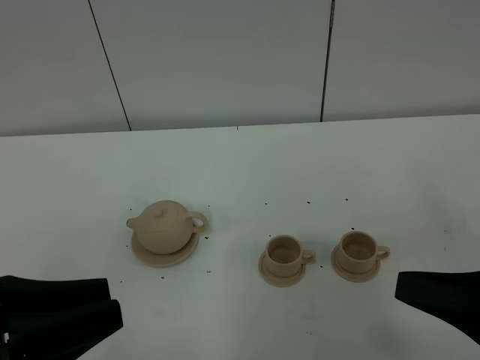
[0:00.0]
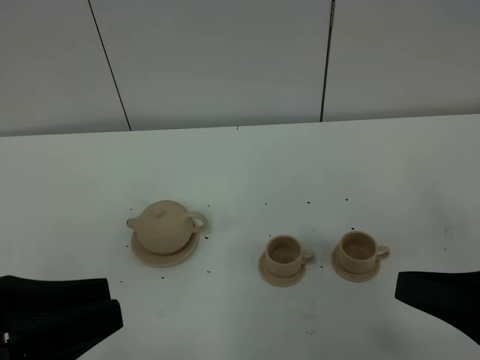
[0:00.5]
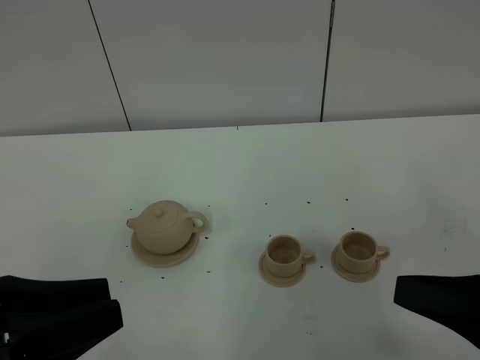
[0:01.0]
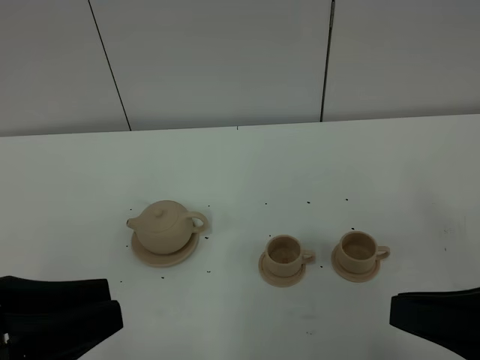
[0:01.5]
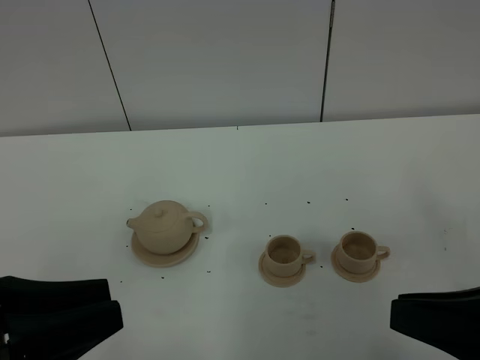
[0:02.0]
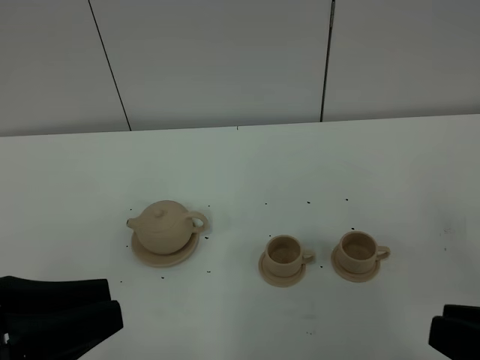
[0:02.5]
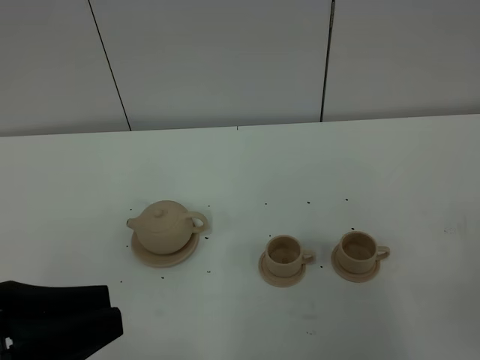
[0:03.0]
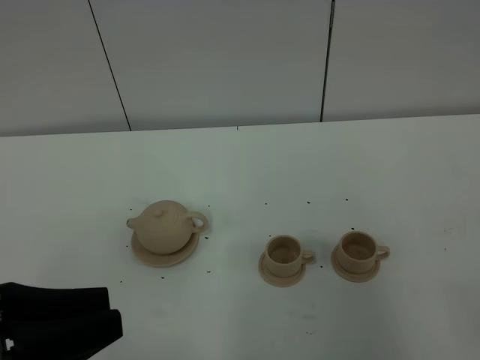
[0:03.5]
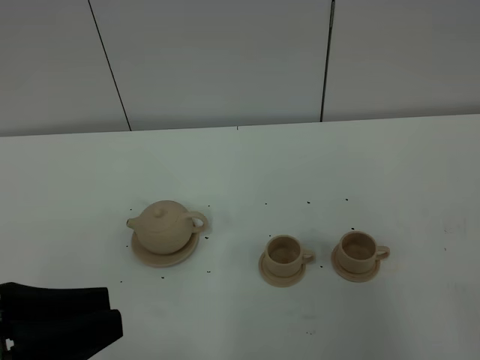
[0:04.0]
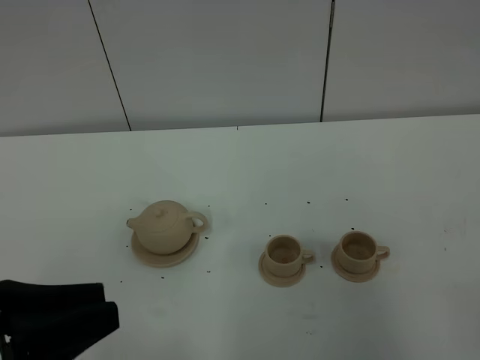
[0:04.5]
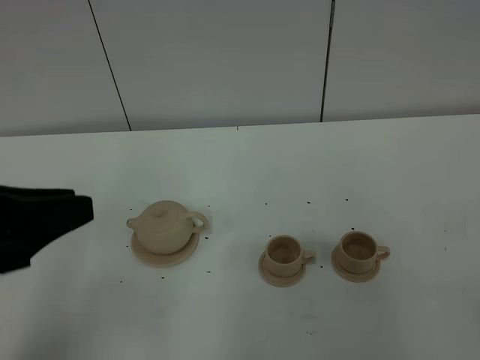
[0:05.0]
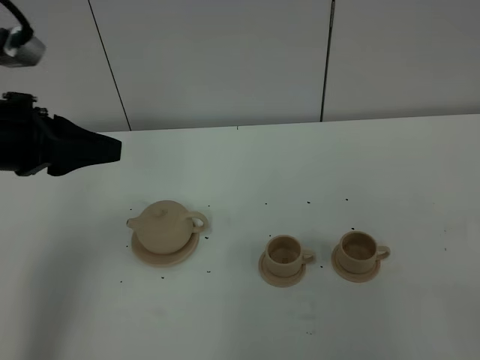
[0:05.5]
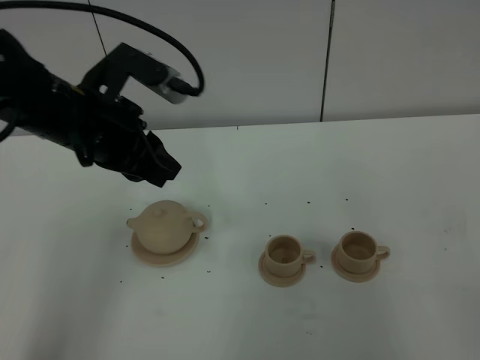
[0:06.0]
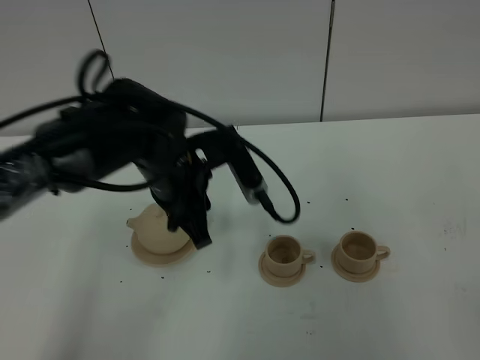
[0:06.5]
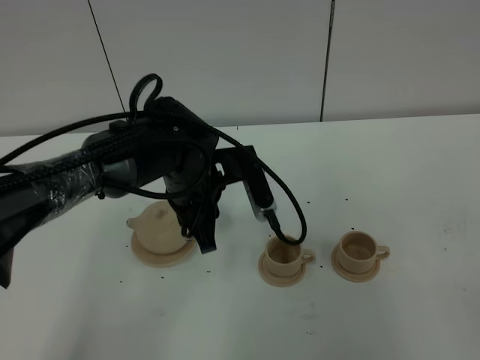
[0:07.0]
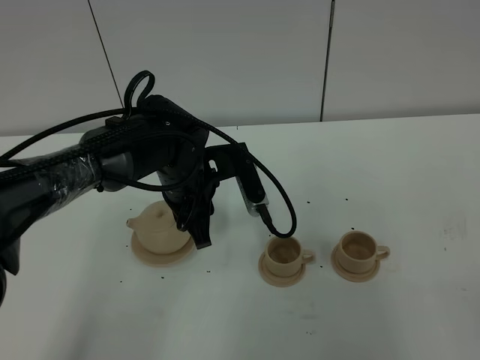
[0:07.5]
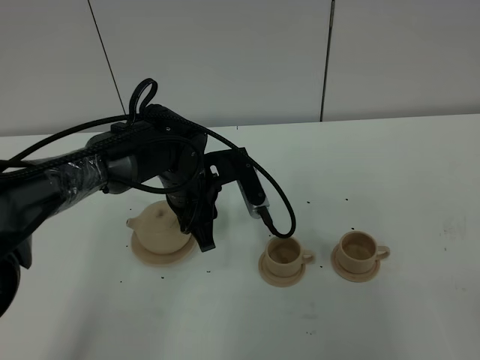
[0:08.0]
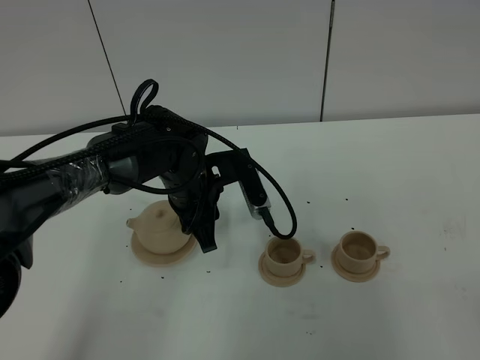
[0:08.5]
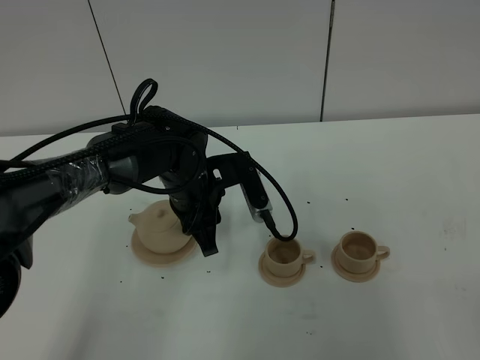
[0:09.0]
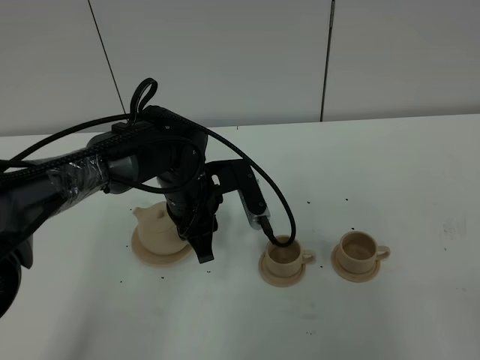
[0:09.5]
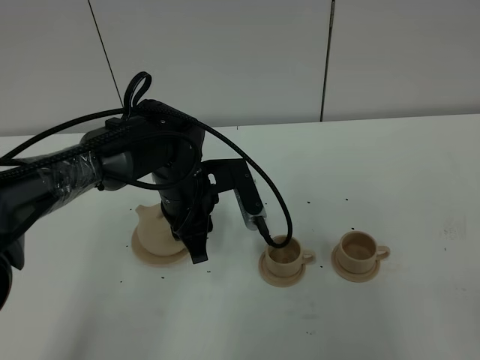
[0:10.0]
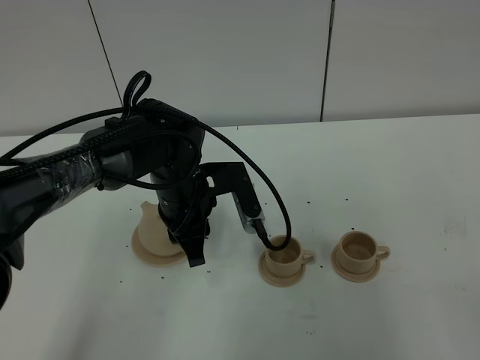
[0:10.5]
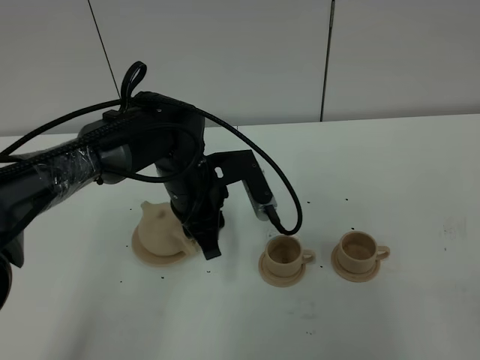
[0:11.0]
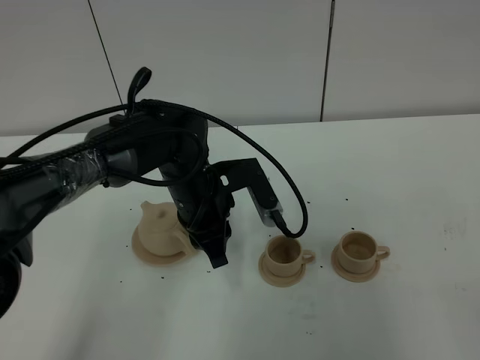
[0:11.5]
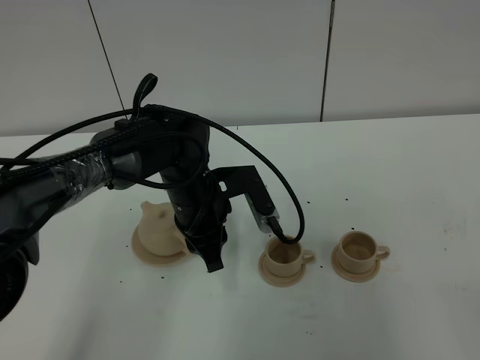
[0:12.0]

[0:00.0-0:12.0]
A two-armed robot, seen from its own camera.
Task of the whole recording: grasp the brown teapot and pour the tea into the two brown teacups one by one, put the brown teapot back in its original place.
0:00.0 to 0:02.0: There are only small adjustments of the grippers.
0:02.0 to 0:04.0: The right gripper travels backward and to the right by about 15 cm.
0:04.0 to 0:06.0: The left gripper heads forward, covering approximately 25 cm.
0:06.0 to 0:08.0: The left gripper heads downward and to the right, covering roughly 15 cm.
0:08.0 to 0:12.0: The grippers move only a little.

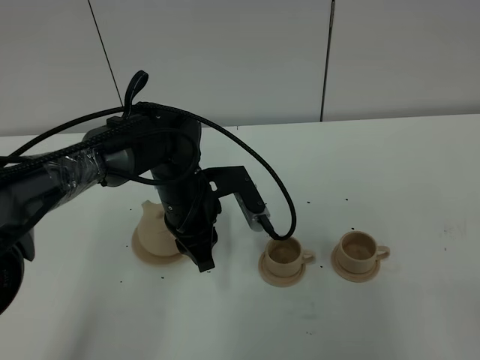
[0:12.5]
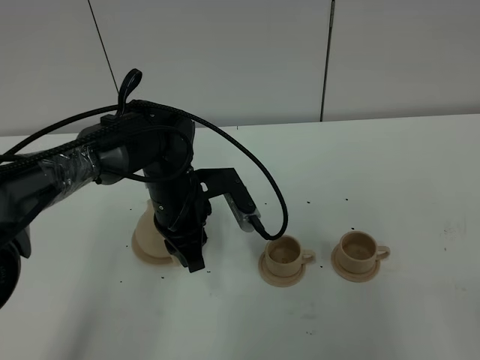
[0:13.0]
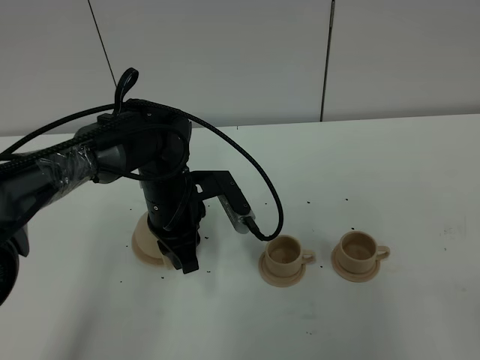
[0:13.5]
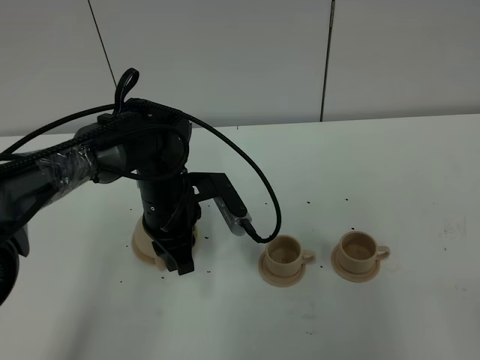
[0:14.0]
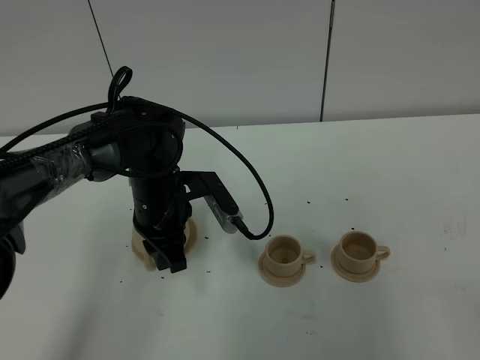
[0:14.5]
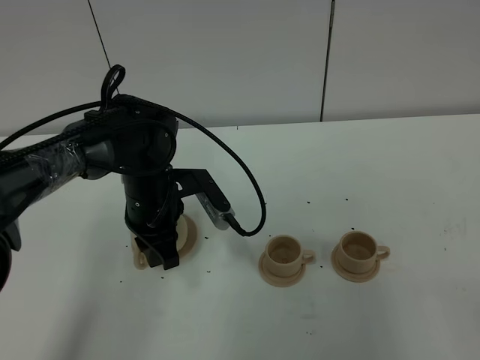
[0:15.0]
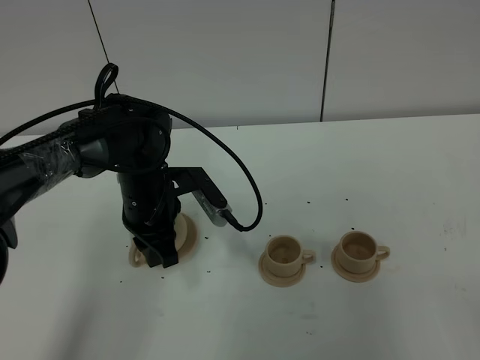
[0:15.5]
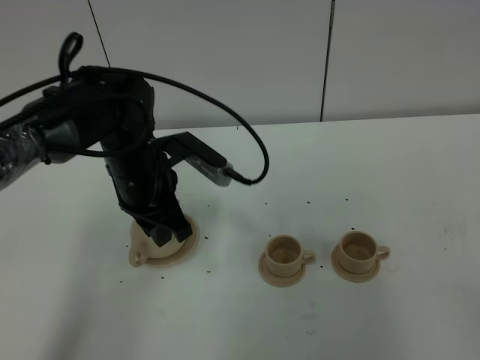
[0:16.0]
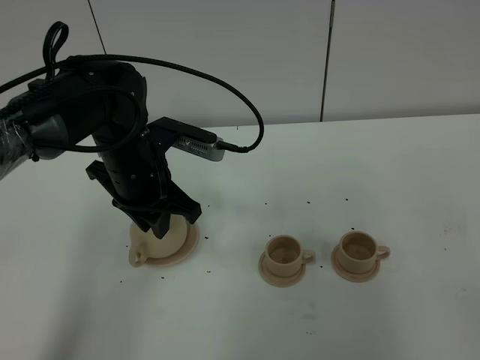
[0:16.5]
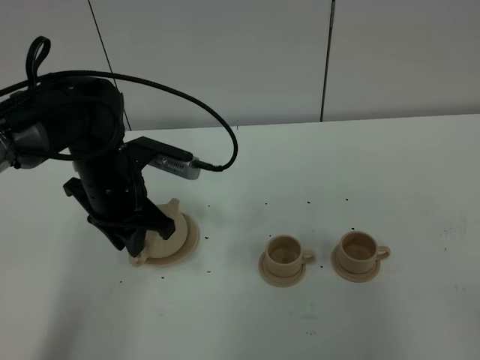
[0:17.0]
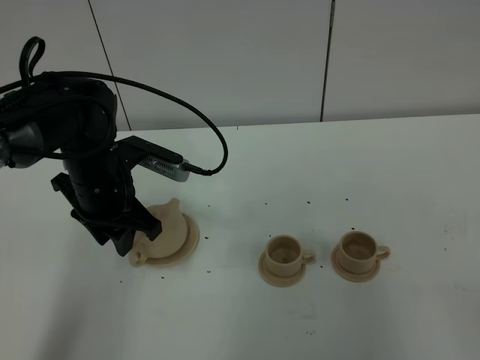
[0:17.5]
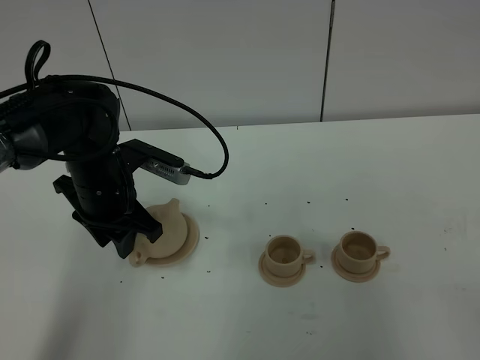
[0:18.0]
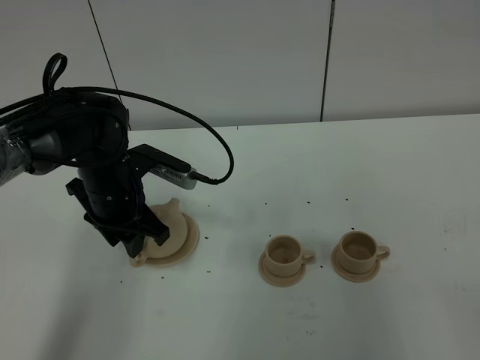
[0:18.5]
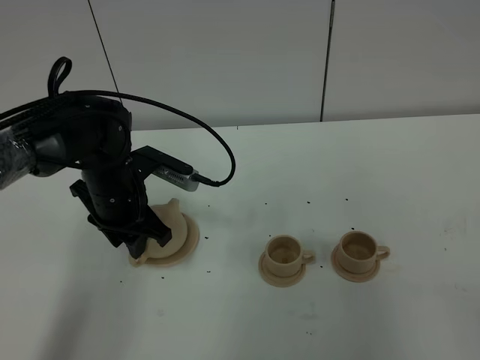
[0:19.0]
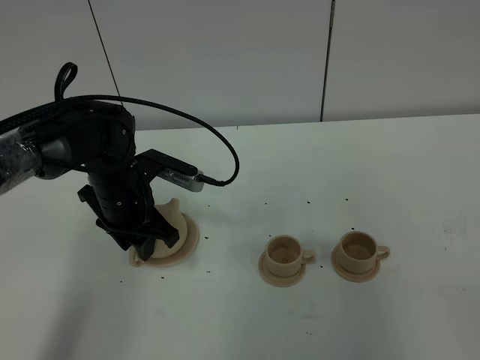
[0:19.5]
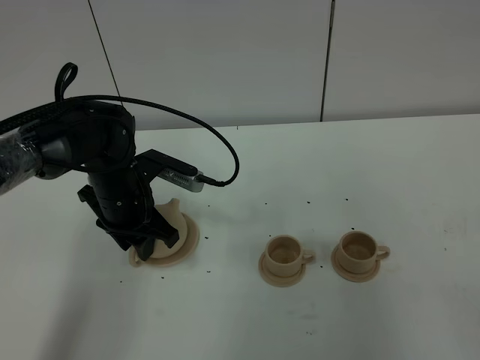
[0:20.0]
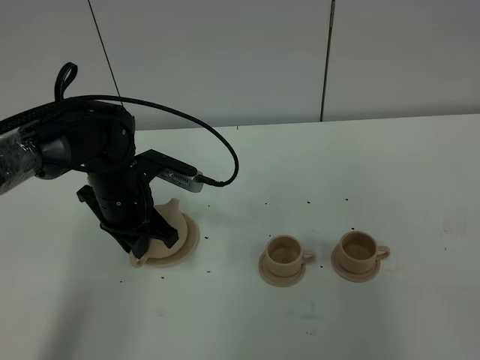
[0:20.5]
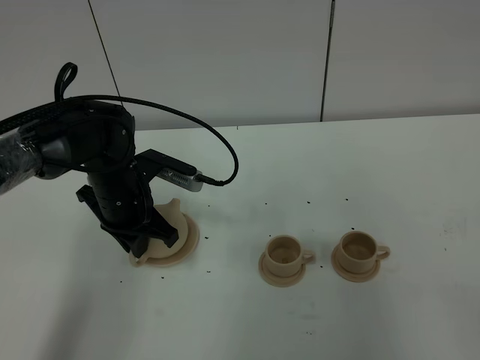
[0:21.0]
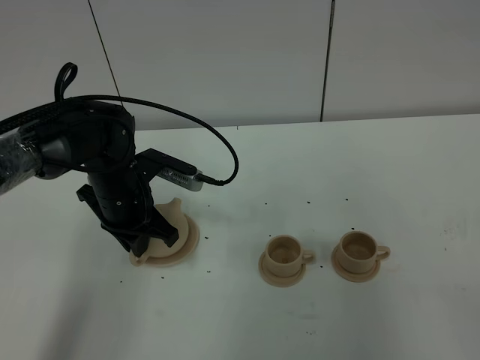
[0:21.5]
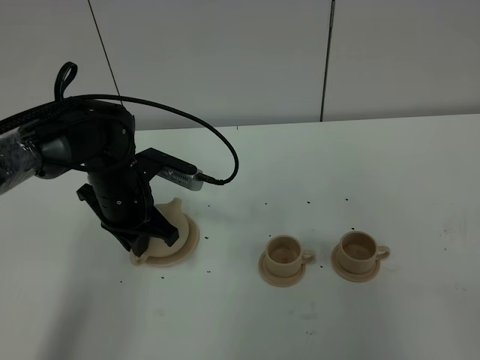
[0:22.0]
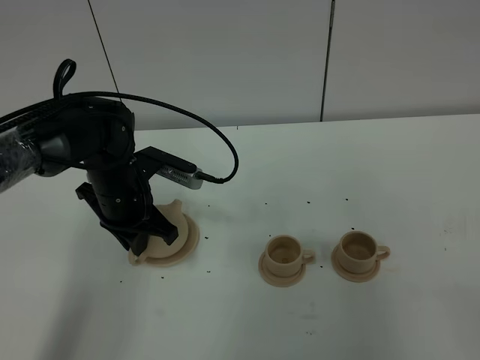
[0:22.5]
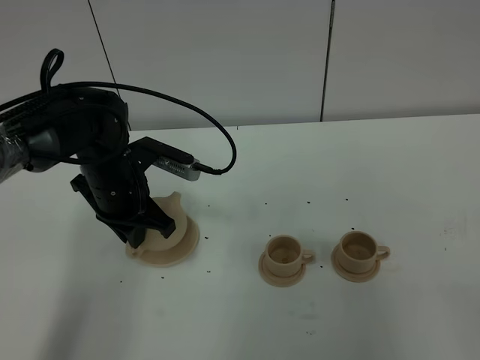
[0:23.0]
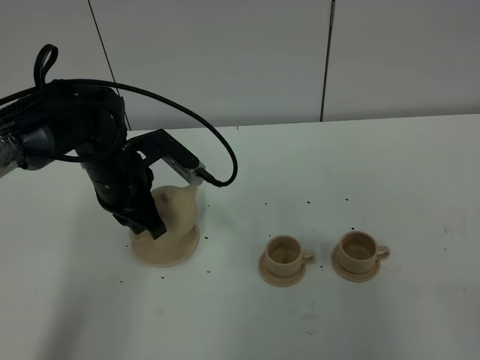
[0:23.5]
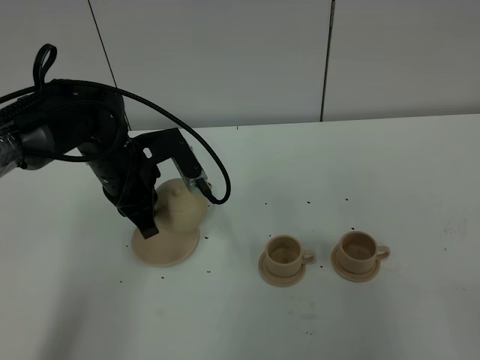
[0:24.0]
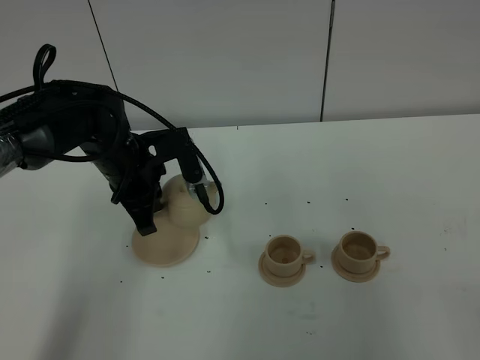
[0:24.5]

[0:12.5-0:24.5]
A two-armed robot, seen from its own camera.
Task of the whole recording: grasp the brown teapot and pour the tea into the two brown teacups one by one, put the brown teapot back in its original place.
Step, 0:12.5 to 0:23.0: Pick up the teapot with the left gripper.
0:12.5 to 0:14.5: The grippers move only a little.
0:14.5 to 0:16.5: The left gripper travels upward by about 5 cm.
0:16.5 to 0:18.5: The left gripper changes place by approximately 5 cm, and opens its fingers.
0:18.5 to 0:20.5: The left gripper closes.
0:20.5 to 0:22.5: Both grippers stay put.

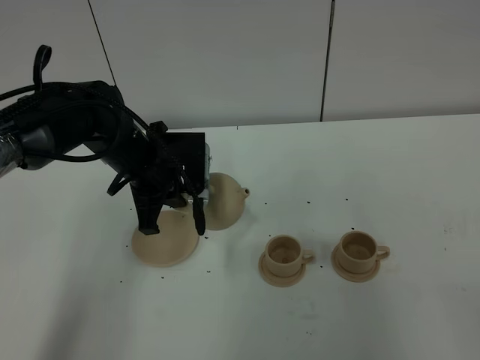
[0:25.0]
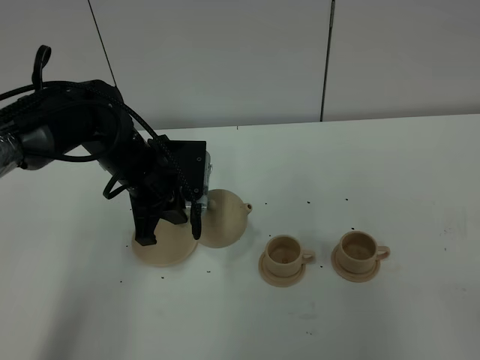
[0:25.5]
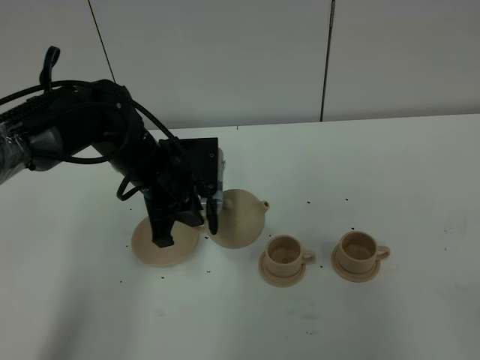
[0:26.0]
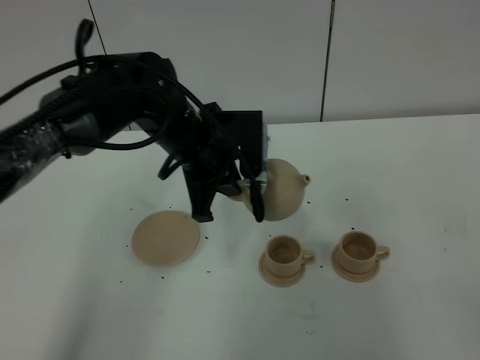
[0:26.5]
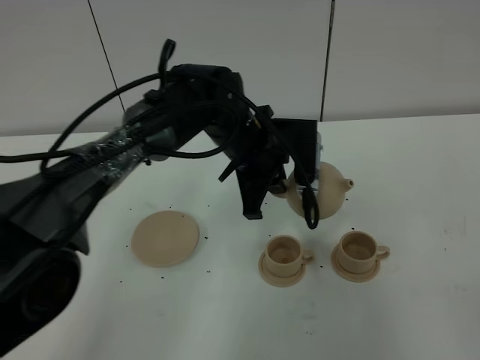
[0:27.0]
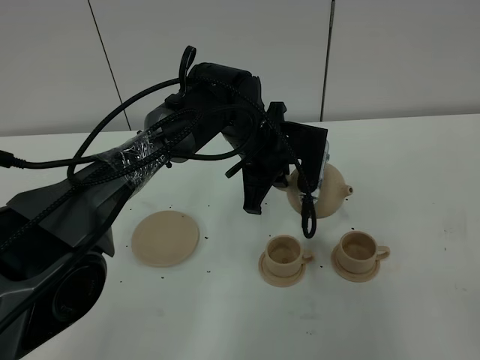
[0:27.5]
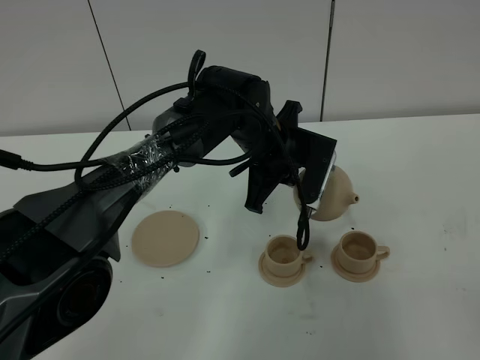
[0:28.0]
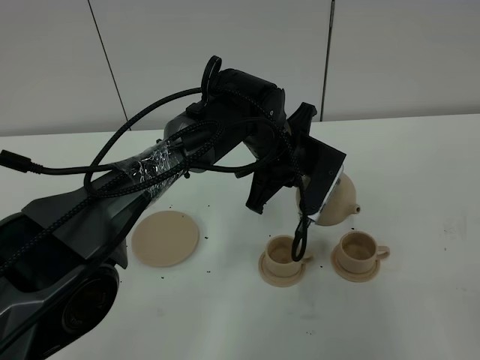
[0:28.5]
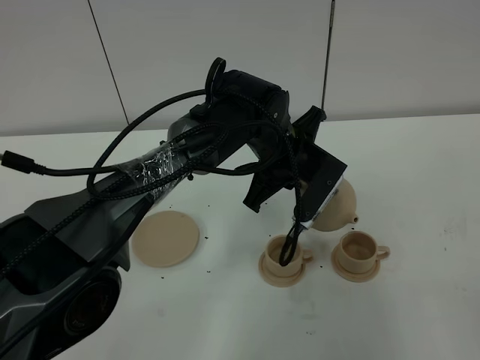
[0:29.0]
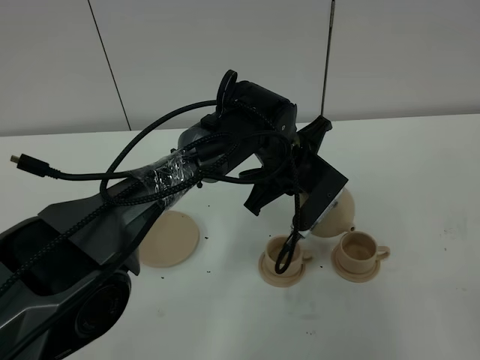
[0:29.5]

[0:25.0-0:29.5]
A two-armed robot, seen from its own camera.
Task of the whole recording: grasp the brown teapot and pour the tea into the two brown teacups one by one, put the brown teapot back in its original place.
0:25.0 to 0:27.0: The left gripper moves to the right, approximately 15 cm.
